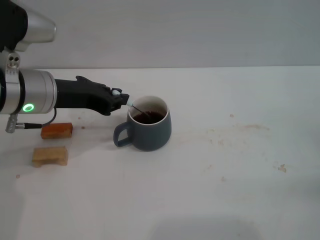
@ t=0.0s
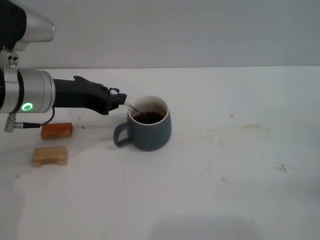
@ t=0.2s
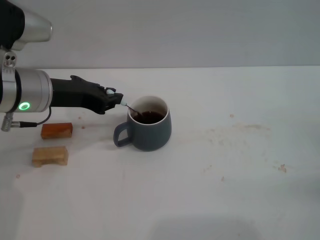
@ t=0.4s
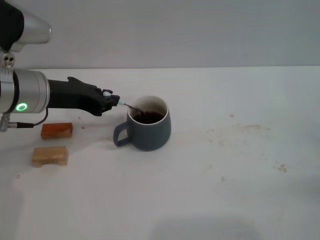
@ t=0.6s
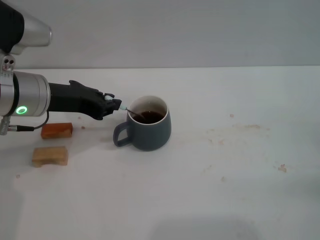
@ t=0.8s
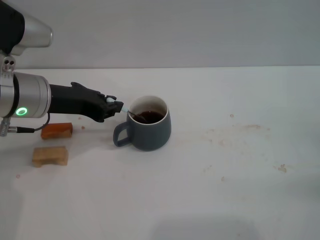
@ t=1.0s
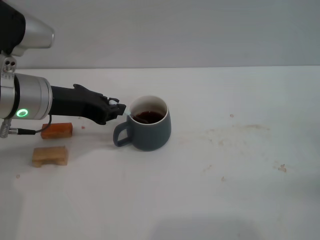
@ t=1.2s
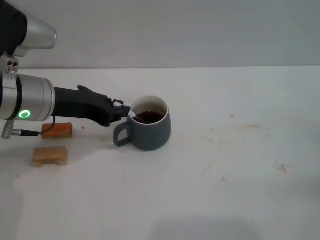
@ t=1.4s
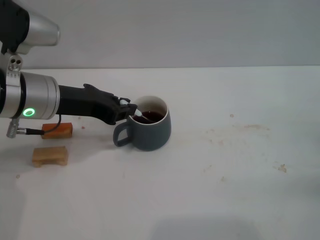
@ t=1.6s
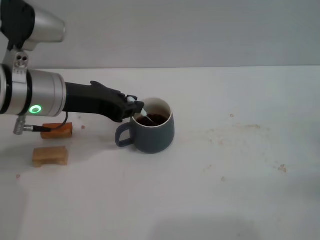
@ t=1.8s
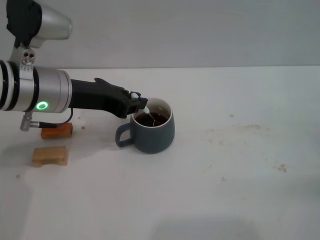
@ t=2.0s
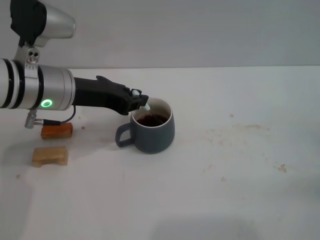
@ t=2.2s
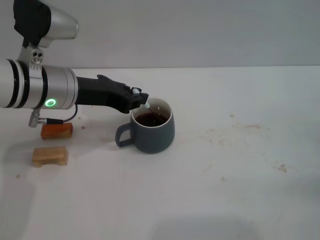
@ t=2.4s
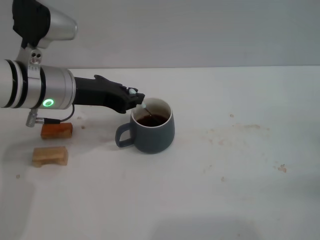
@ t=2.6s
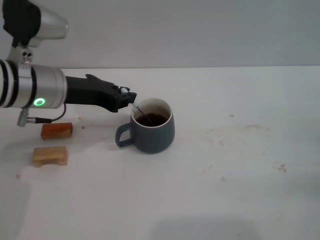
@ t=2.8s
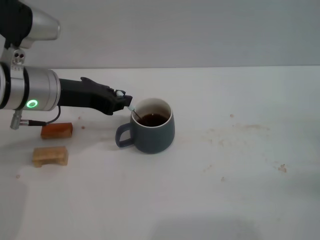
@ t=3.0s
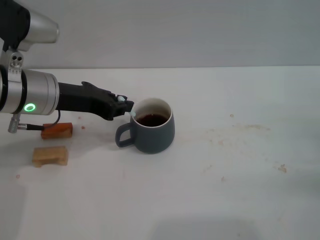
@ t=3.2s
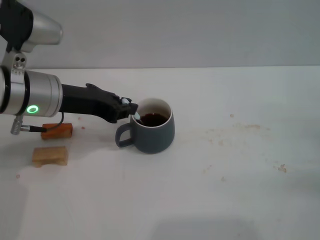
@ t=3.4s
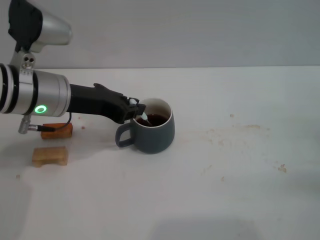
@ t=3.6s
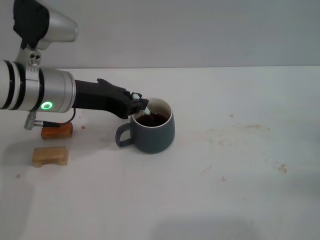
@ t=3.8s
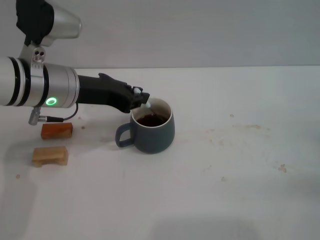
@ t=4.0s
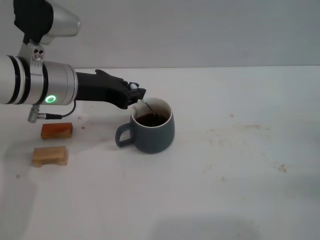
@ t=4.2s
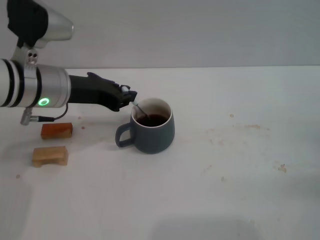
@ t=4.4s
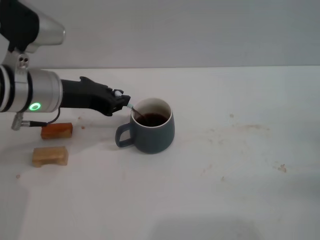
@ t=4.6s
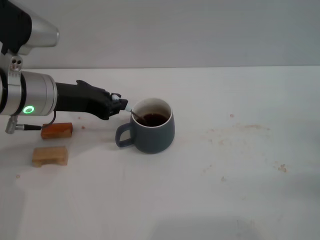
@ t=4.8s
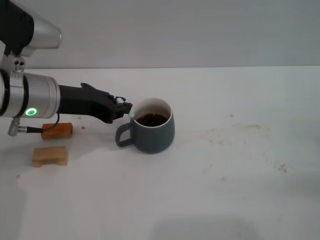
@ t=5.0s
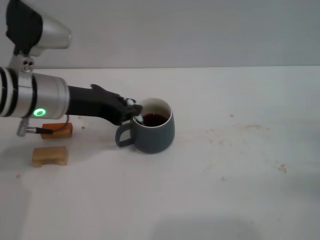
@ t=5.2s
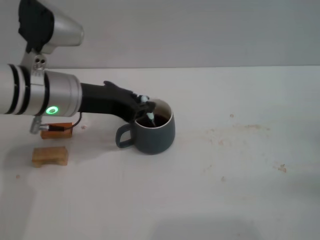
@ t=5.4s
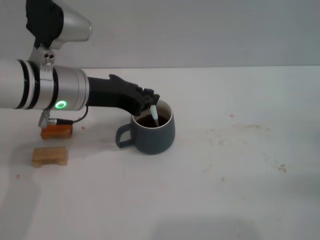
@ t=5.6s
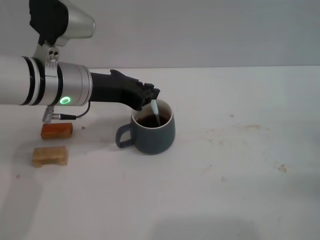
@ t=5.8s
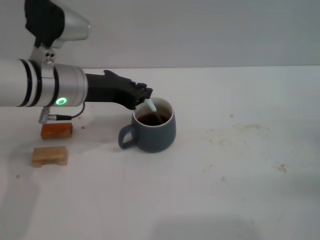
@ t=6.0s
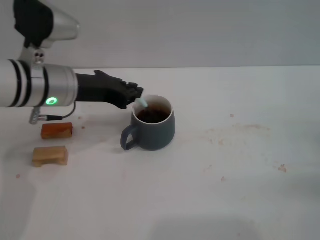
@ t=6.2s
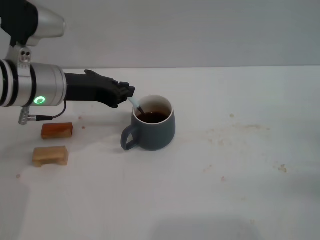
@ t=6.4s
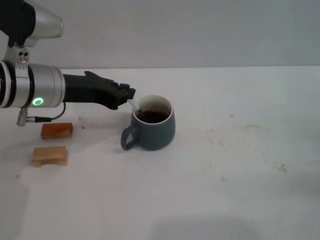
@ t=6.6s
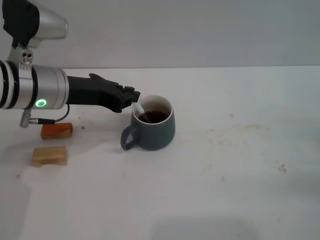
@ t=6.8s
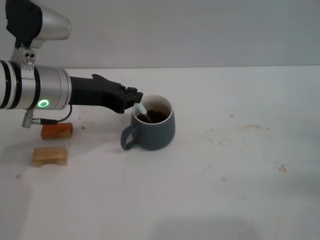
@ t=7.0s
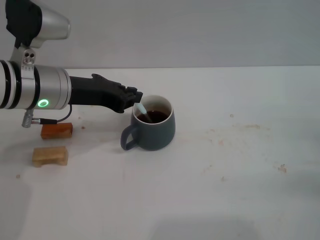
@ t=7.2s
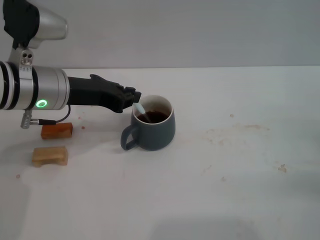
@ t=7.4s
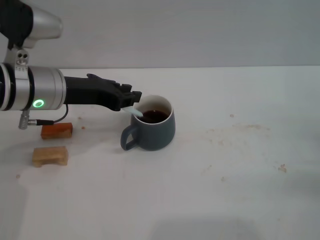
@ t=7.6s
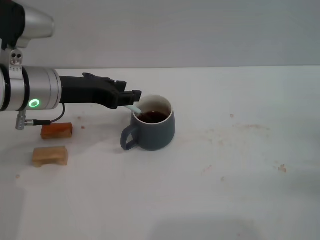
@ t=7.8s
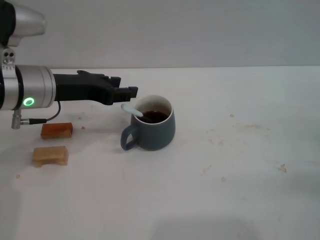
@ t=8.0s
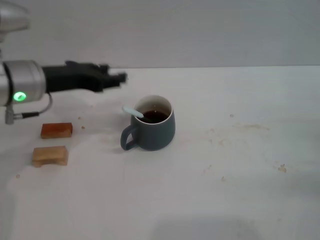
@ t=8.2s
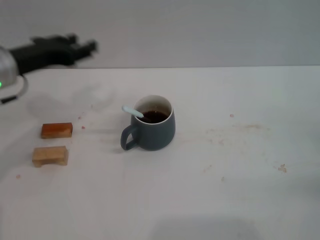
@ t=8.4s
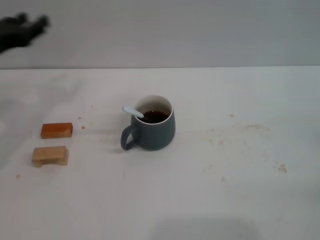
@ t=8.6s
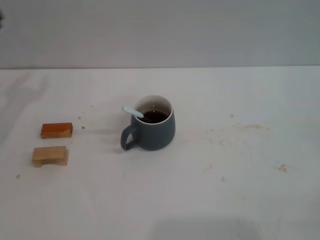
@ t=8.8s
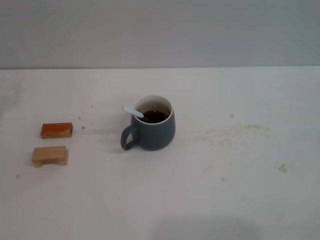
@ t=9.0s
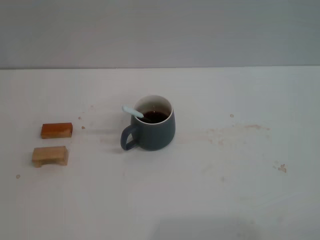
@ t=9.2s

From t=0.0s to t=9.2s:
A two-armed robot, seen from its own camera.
Task of the whole recording: Move the grey cup to the center, lift the blue spoon, stir it three times in the cup, and put the spoon into the cup.
Step, from t=0.0s to t=8.0s: Stir the coffee in the cup with the left gripper.
From t=0.0s to t=7.6s: The grippers move only a little.
From t=7.6s to t=9.2s: The right gripper travels to the right and backward by approximately 10 cm, while the left gripper heads to the left and downward, covering approximately 20 cm, and opens its fingers.

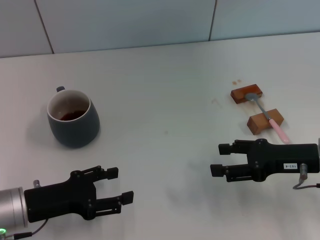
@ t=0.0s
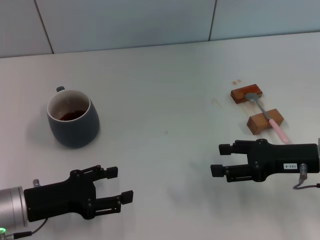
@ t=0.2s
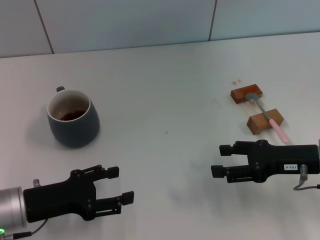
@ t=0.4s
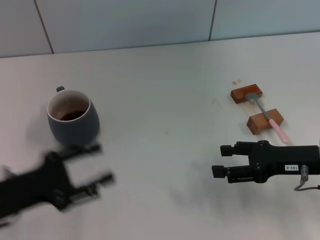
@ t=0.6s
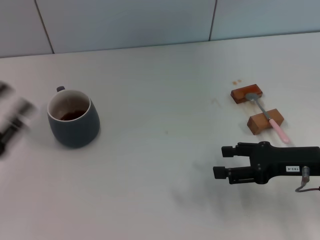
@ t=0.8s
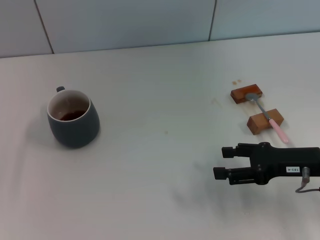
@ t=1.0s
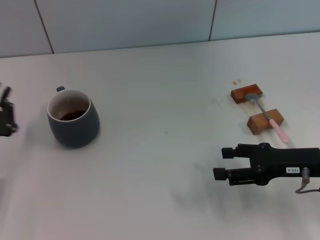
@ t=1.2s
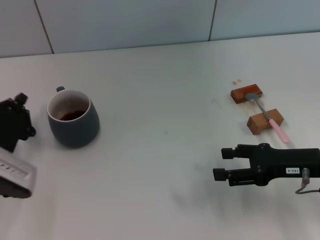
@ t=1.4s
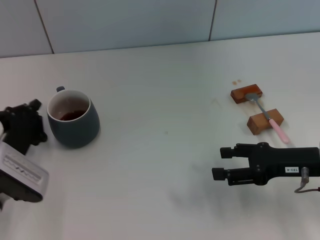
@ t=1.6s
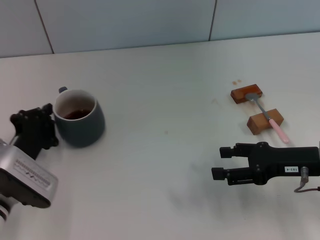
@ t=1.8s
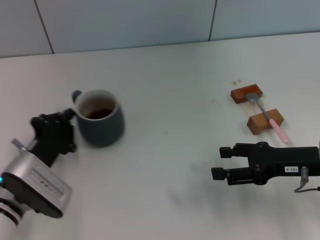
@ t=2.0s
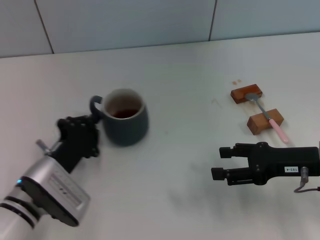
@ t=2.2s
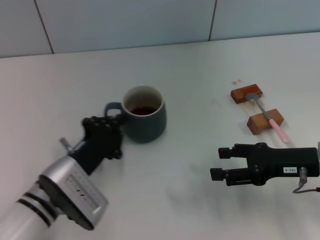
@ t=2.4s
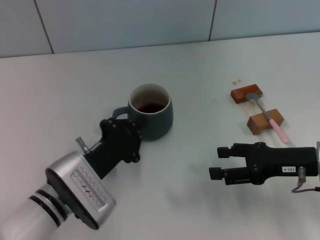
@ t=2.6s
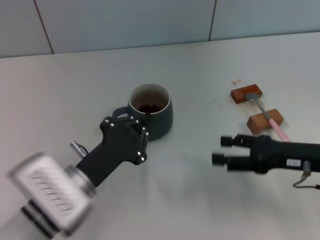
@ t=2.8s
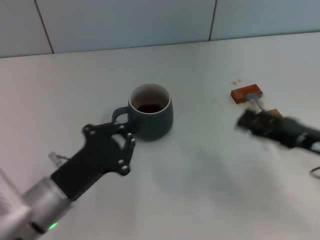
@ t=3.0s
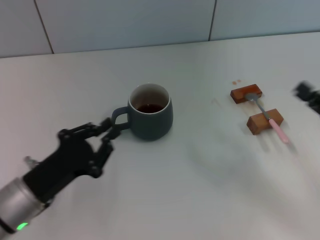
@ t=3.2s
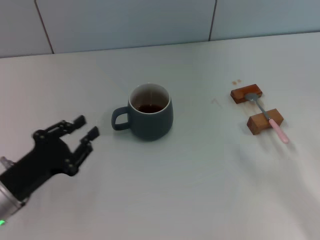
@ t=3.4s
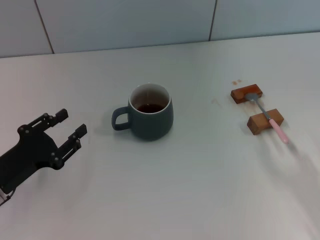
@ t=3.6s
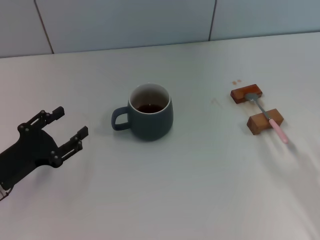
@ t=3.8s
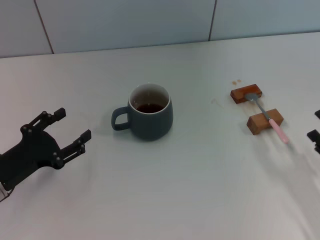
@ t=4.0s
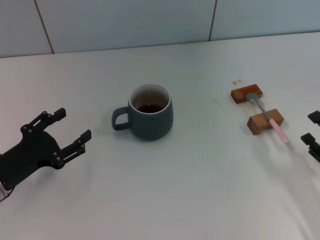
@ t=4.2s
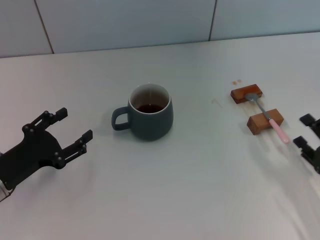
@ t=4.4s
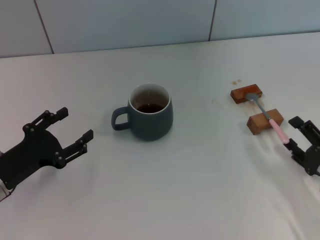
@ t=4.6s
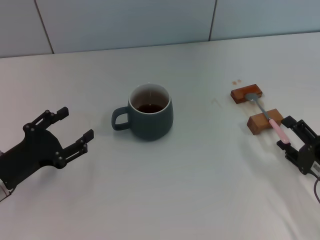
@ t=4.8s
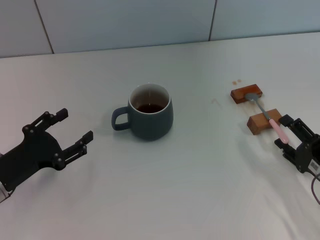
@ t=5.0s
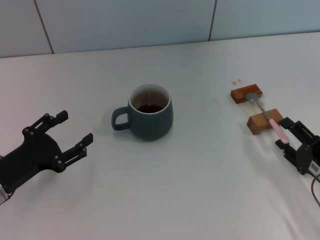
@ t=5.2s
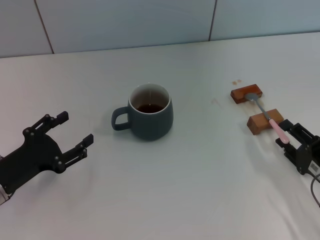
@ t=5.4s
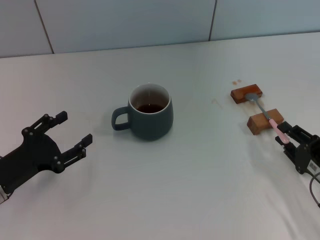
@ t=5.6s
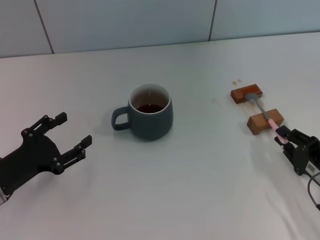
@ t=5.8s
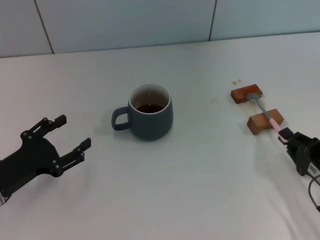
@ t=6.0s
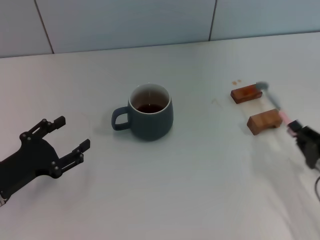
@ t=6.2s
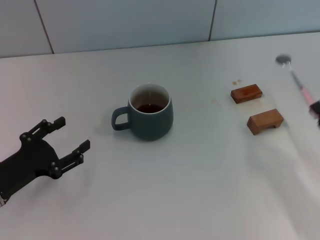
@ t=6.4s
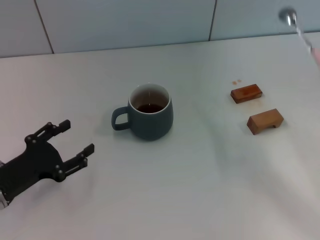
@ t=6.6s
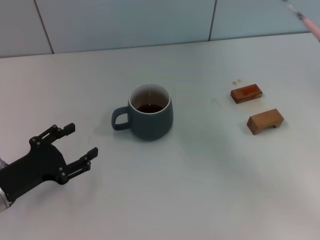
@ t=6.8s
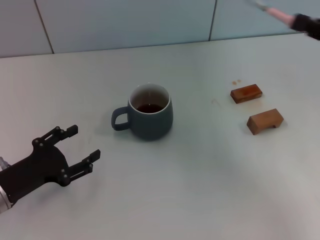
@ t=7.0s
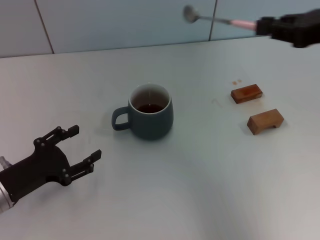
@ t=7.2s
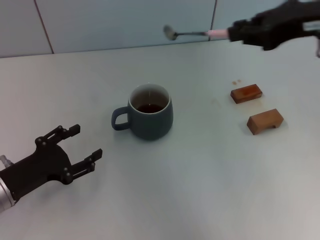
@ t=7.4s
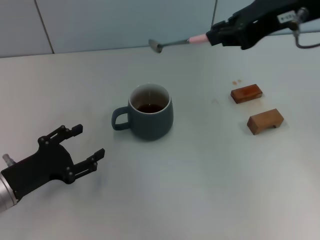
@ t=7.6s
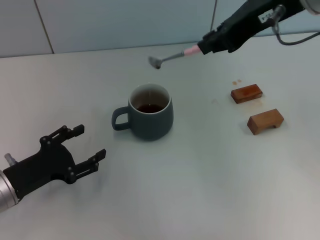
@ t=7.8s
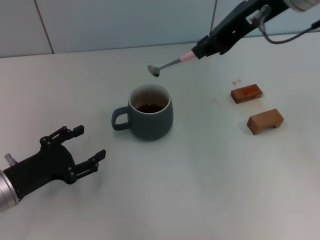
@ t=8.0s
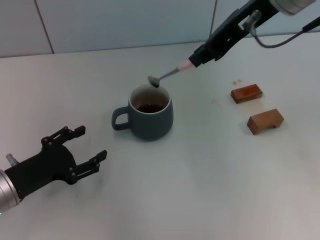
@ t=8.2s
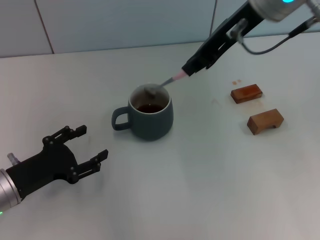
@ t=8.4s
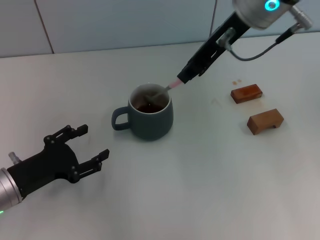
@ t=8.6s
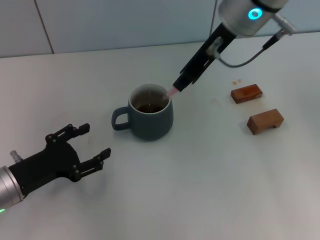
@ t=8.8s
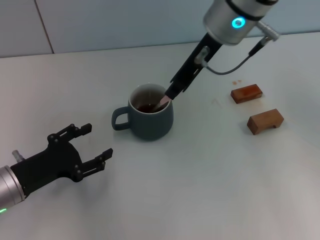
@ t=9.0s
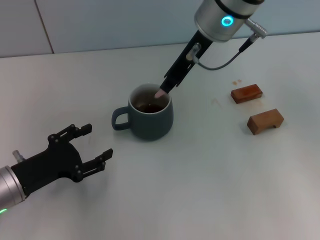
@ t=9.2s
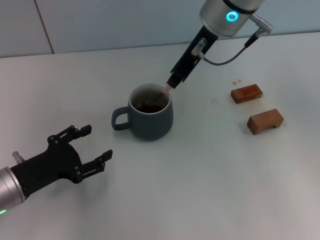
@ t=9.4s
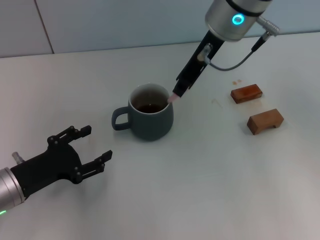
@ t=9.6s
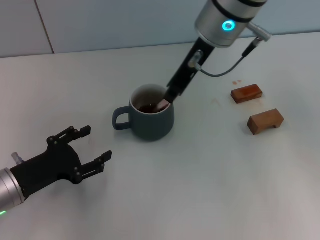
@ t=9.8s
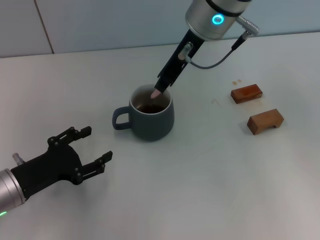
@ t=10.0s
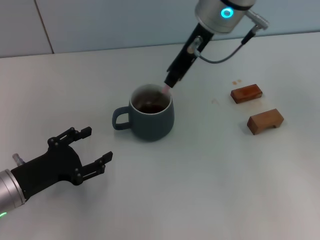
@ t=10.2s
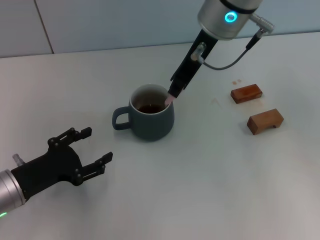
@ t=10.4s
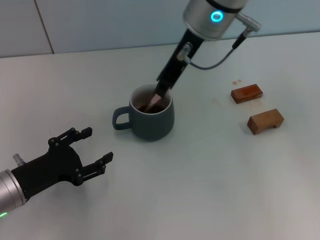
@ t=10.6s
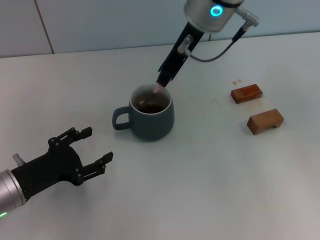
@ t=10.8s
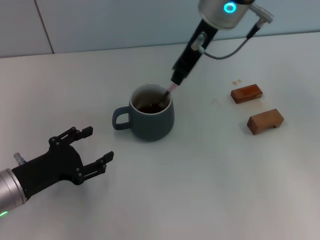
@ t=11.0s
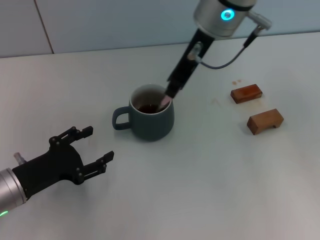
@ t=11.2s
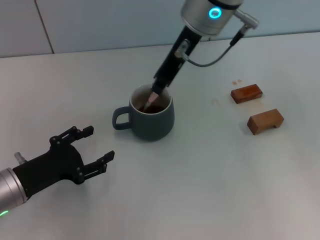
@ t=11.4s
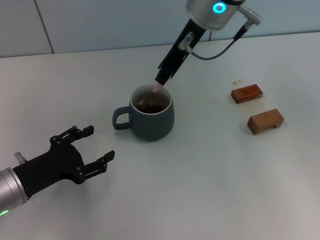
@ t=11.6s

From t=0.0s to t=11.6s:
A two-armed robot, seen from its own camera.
Task of the whole recording: Move the grey cup to the center, lift the pink spoon, stir it three times in the cup, and put the spoon into the cup.
Step, from t=0.0s to t=3.0s: Move the cup with coffee to the center of view with the left gripper.
Step, from t=3.4s to t=6.2s: Pick up the spoon with the right gripper.
From t=0.0s to t=1.4s: The left gripper closes.
From t=1.4s to t=2.8s: The left gripper shifts roughly 10 cm to the right.
From t=2.8s to t=4.4s: The left gripper shifts roughly 15 cm to the left, and opens its fingers. The right gripper goes approximately 10 cm backward and downward.
From t=4.4s to t=5.8s: The right gripper closes its fingers.
From t=5.8s to t=7.2s: The right gripper is displaced upward and forward by roughly 30 cm, and closes.
From t=7.2s to t=8.8s: The right gripper goes about 20 cm to the left and forward.
From t=8.8s to t=11.6s: There are only small adjustments of the grippers.

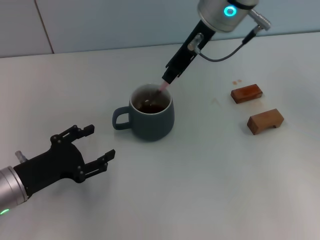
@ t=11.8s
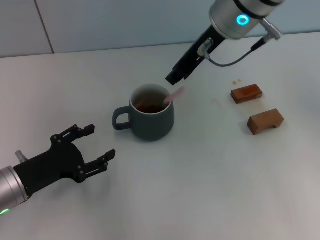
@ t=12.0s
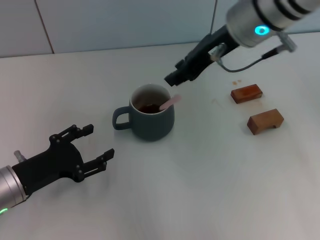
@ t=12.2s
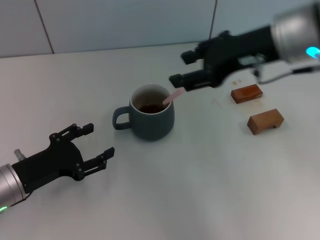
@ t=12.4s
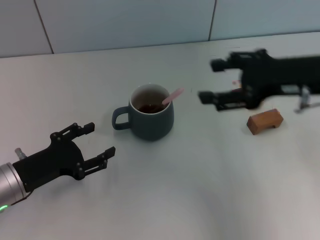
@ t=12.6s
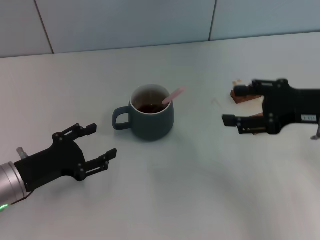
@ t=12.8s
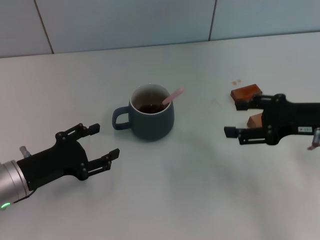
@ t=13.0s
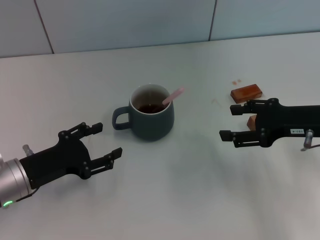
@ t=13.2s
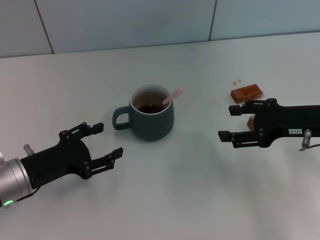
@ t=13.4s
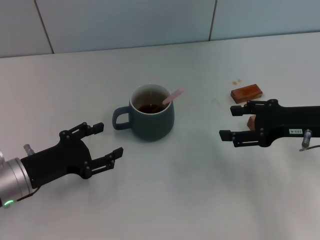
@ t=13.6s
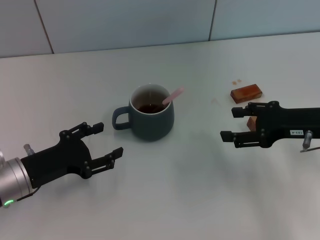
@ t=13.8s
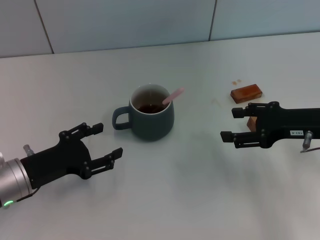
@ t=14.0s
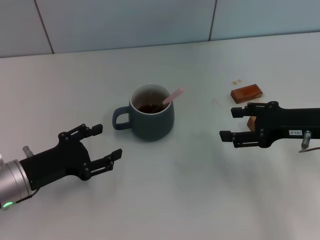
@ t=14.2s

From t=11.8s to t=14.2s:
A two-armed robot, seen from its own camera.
Task of the whole recording: Move the grey cup to the center, lift the pink spoon, stir it three times in the cup, and put the spoon into the cup.
From t=11.8s to t=13.0s: The right gripper travels to the right, downward and backward by about 25 cm, and opens.
From t=13.0s to t=14.2s: There are only small adjustments of the grippers.
